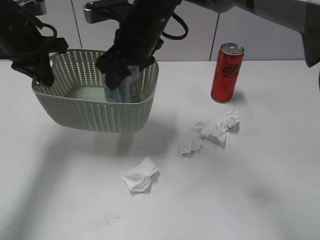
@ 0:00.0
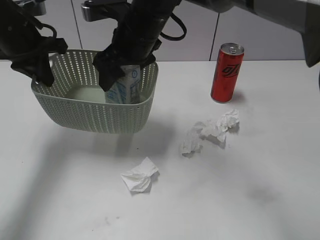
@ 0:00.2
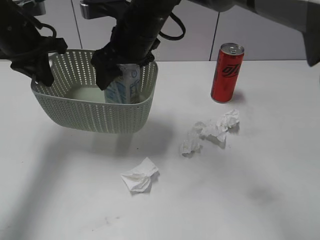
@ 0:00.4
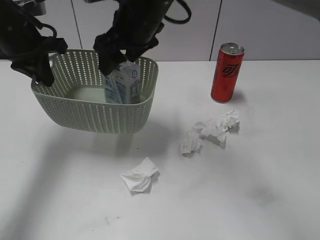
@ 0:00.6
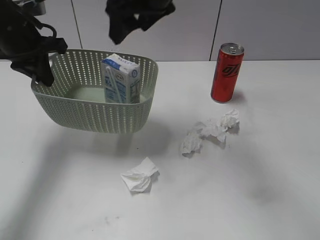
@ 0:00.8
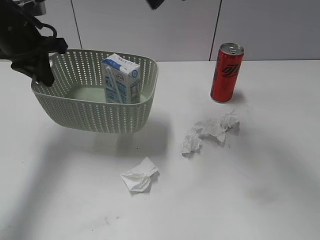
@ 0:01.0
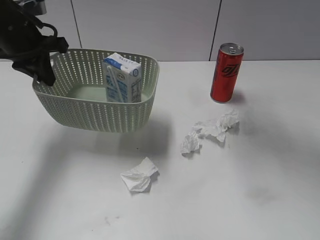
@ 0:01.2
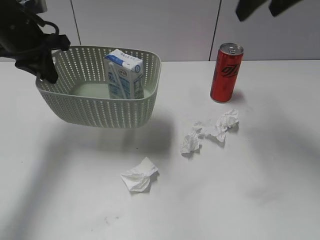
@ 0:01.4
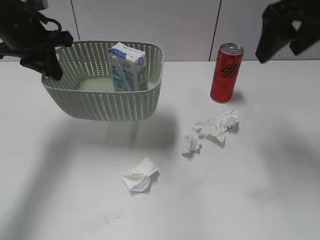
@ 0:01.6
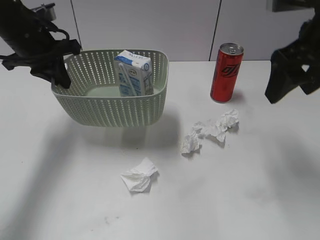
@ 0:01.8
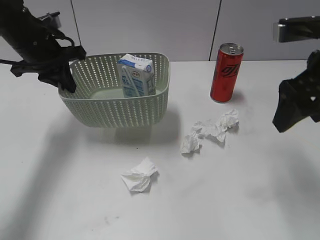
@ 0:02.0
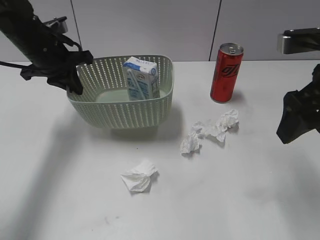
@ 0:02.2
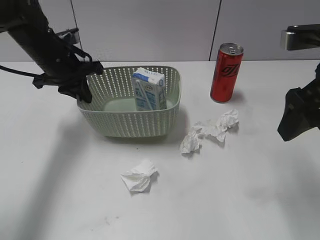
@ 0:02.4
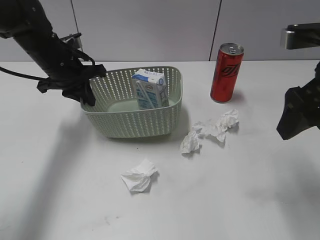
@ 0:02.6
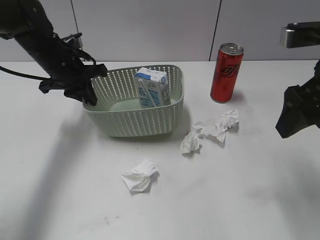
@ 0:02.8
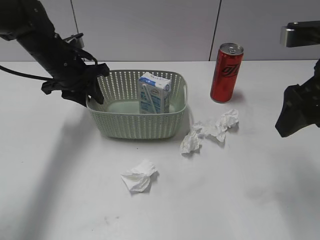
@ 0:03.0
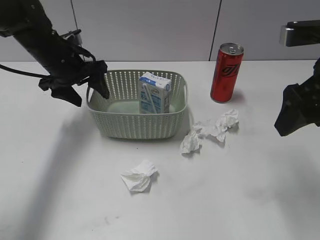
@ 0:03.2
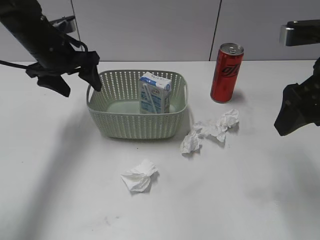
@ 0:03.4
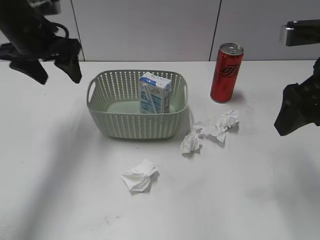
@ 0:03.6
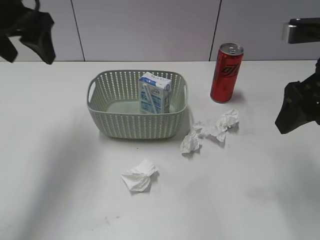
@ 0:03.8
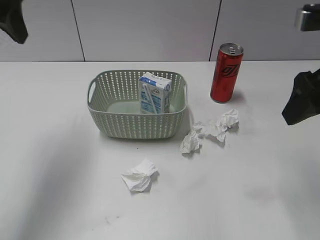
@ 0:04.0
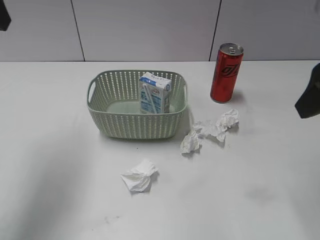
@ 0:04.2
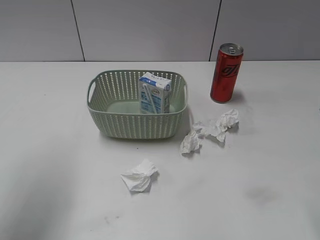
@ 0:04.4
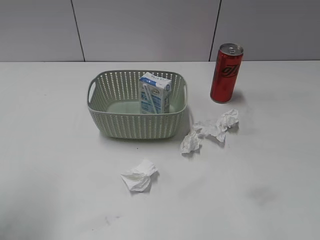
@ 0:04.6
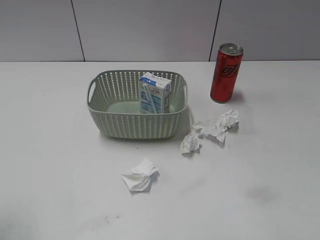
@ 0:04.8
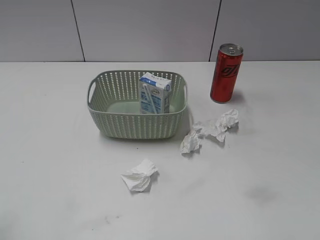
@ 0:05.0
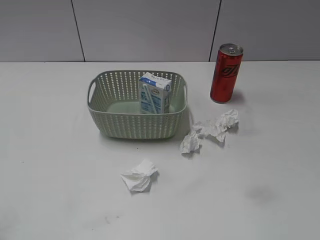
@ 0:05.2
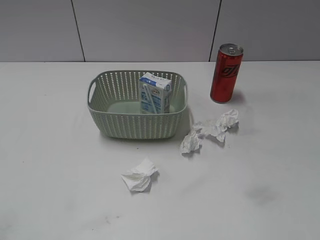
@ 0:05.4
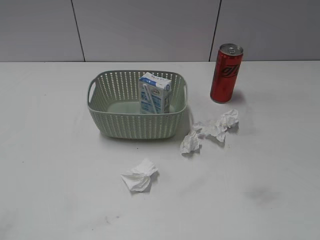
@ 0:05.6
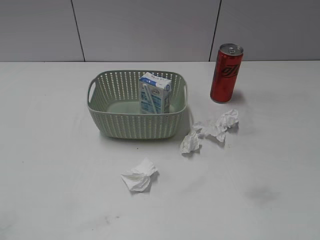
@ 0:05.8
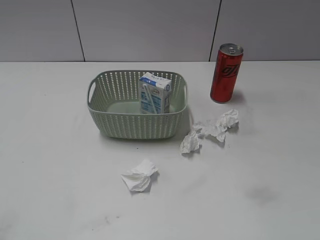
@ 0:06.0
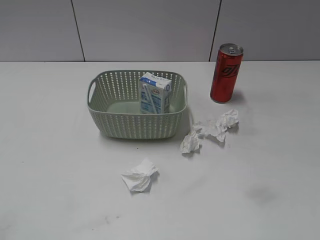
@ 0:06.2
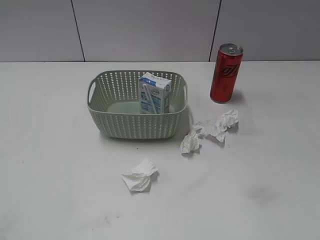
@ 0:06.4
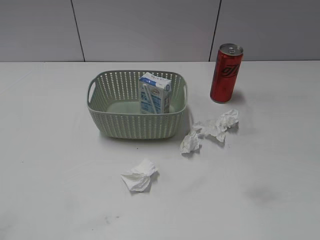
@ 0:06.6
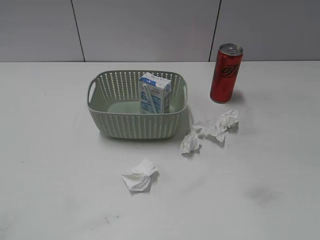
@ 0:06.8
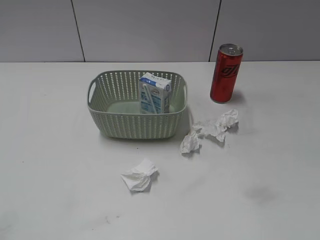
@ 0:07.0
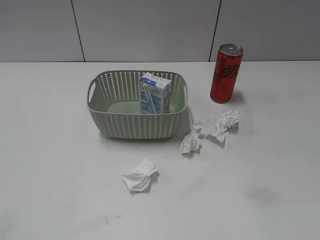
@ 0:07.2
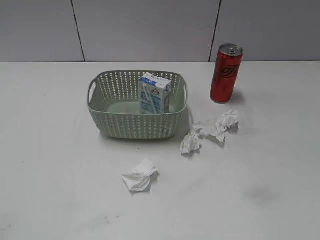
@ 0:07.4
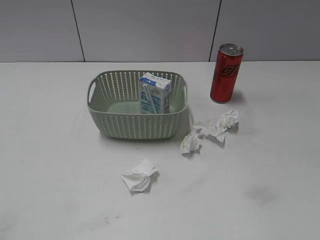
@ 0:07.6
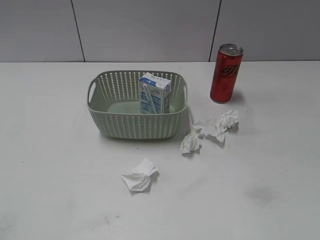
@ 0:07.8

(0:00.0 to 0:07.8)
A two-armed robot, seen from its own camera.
Step, 0:00.8 - 0:03.4: Place the basket on the table with left gripper.
0:00.0 - 0:01.6: The right gripper moves to the right and upward, about 25 cm, and opens its fingers.
0:01.6 - 0:03.2: The right gripper travels backward and downward by some 10 cm. Meanwhile the left gripper goes some 10 cm downward, and opens its fingers.
0:03.2 - 0:04.6: The left gripper moves backward, upward and to the left, roughly 30 cm; the right gripper shifts about 10 cm backward and upward.
0:04.6 - 0:06.2: The left gripper is displaced backward and downward by about 20 cm.

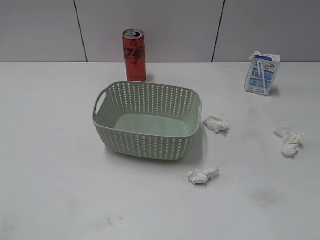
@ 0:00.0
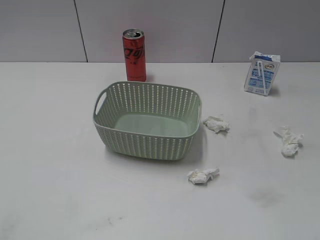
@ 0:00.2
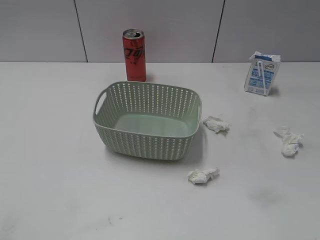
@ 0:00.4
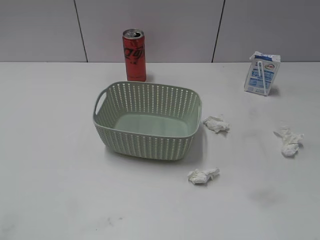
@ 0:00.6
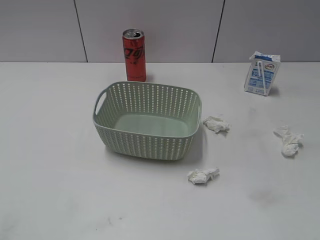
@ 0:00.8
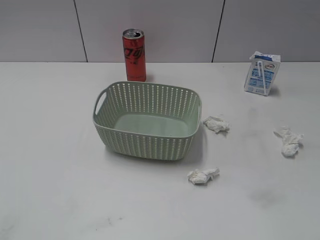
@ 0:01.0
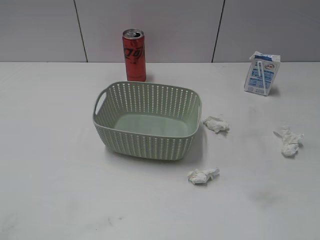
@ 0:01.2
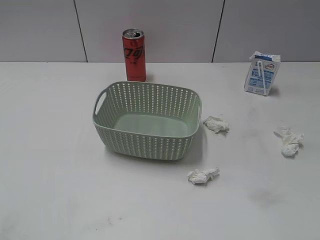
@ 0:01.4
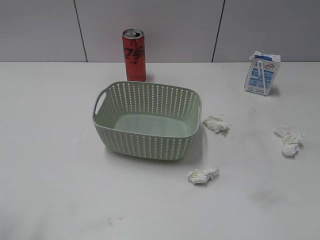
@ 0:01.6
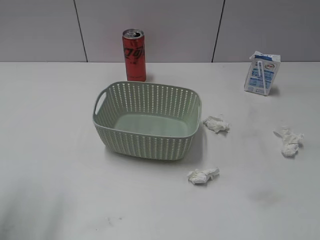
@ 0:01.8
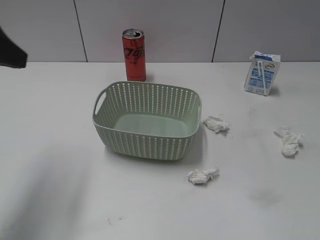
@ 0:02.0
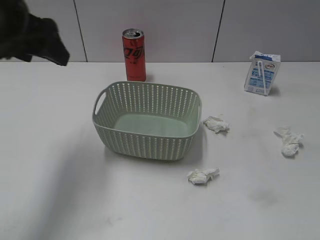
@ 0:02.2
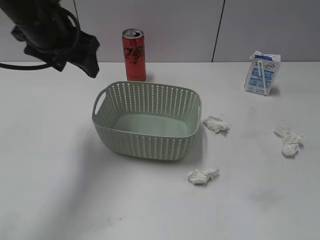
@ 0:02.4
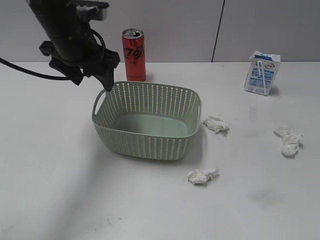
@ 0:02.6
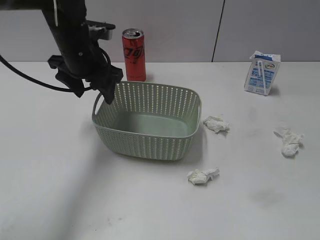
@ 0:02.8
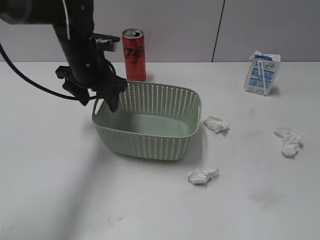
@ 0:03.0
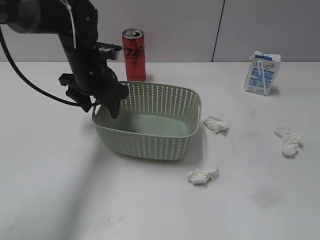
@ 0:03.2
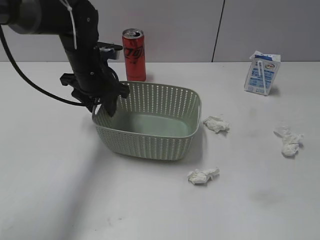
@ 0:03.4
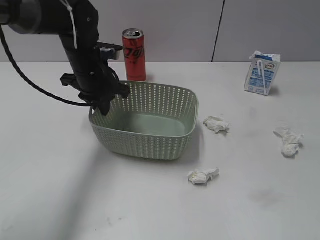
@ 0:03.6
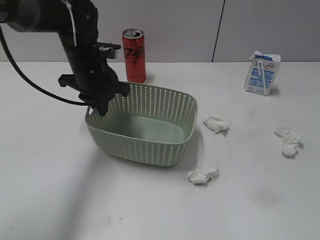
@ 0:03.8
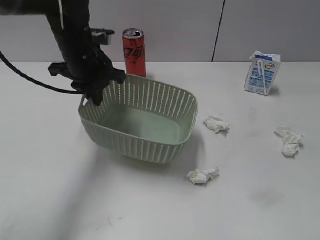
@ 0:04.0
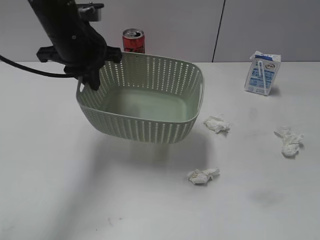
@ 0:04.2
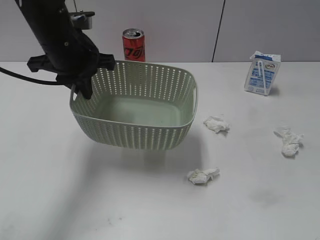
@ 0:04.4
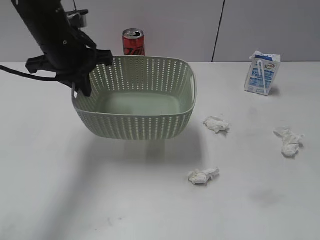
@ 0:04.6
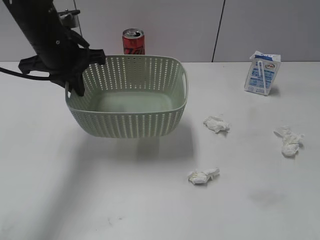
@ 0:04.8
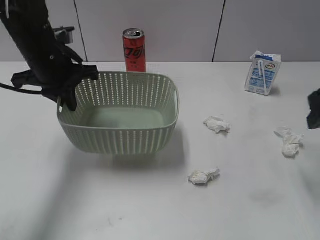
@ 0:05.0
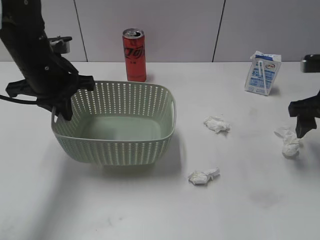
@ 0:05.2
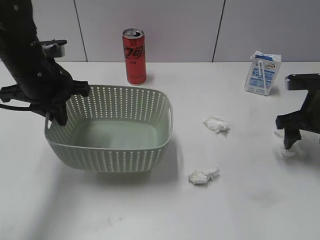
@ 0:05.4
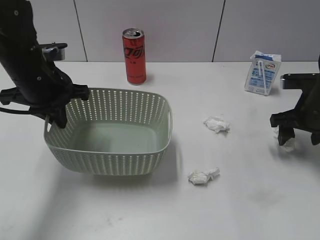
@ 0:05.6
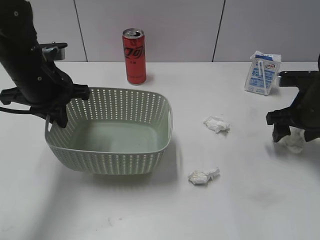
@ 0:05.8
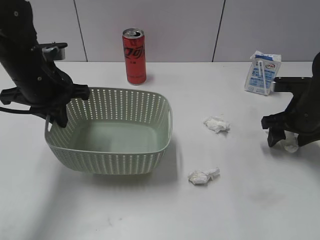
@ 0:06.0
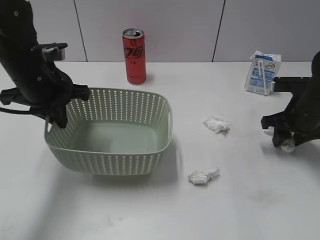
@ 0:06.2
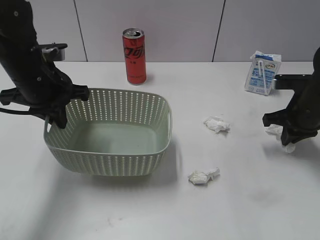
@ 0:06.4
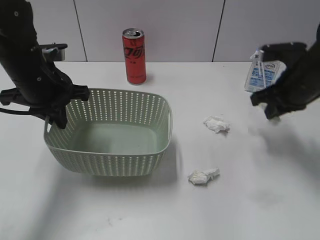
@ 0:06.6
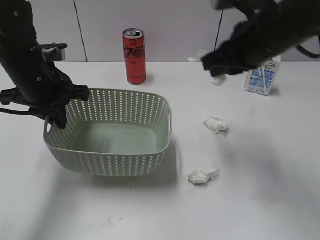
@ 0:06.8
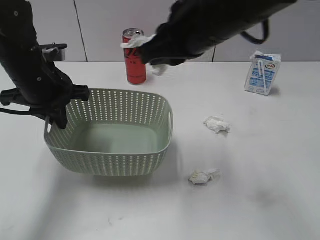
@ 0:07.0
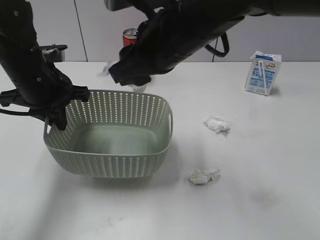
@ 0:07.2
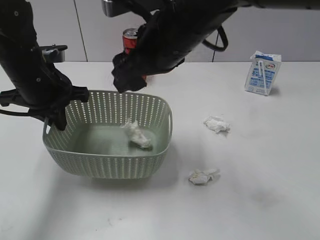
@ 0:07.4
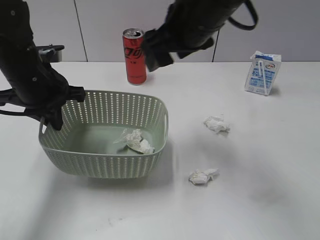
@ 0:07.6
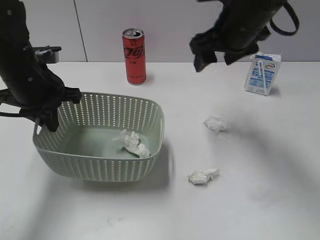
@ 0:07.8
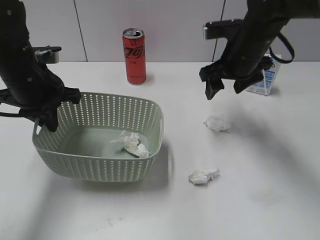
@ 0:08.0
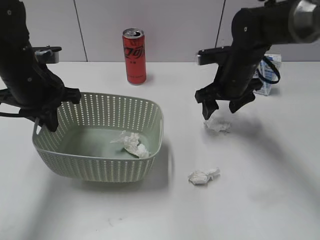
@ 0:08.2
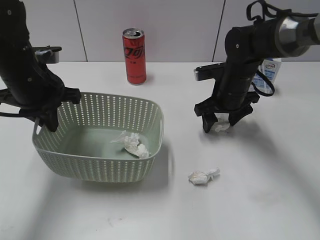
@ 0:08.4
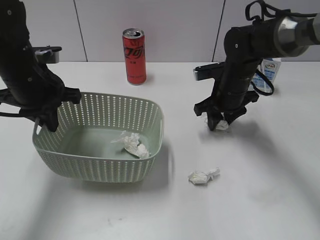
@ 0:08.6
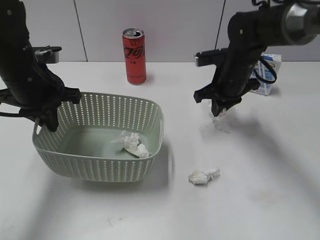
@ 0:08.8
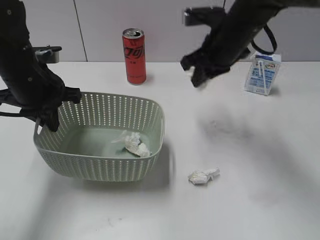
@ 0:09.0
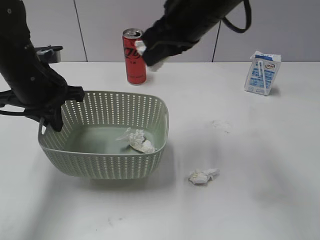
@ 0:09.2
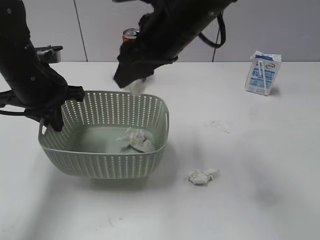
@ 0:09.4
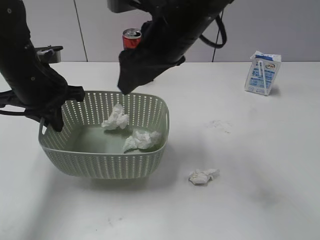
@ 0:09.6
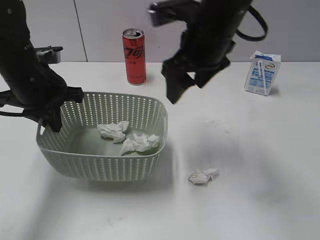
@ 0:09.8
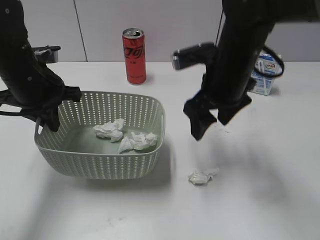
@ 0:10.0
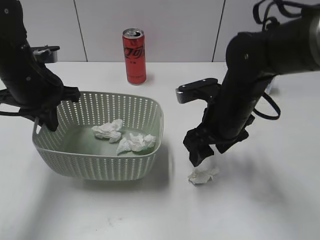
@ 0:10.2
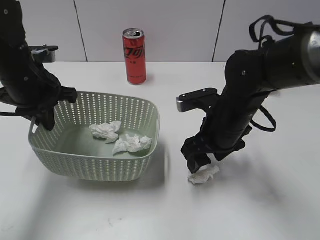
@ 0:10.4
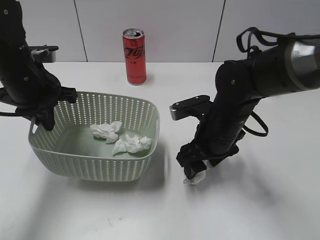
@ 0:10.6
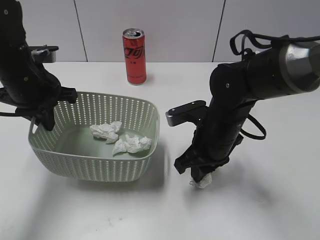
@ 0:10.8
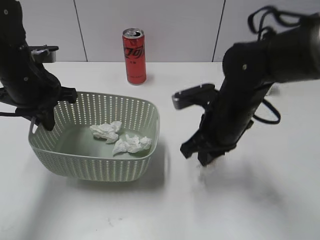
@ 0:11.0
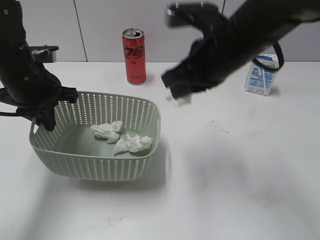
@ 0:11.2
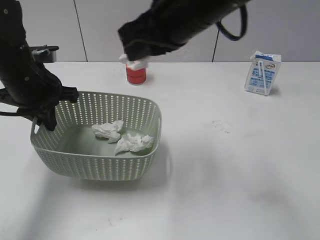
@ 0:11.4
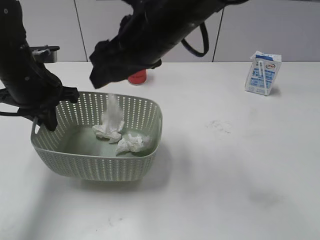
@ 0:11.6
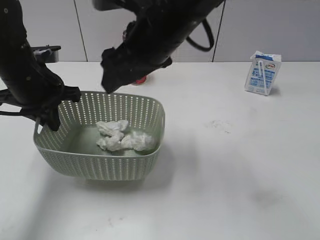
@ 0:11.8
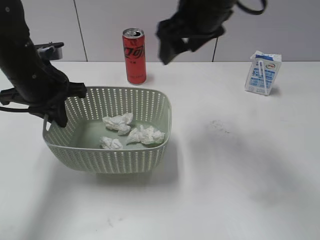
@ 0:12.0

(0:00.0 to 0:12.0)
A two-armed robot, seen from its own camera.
Step, 0:01.8 - 0:03.6: Grasp the basket with left gripper.
Step, 0:03.8 - 0:04.4: Lift the basket with left gripper.
Step, 0:04.6 - 0:06.4: Grasp the waste paper with right gripper.
Step, 0:06.6 - 0:07.4: Place the waste paper in the basket with right gripper.
Step, 0:07.6 - 0:08.8: Grasp the waste paper with right gripper.
Step, 0:09.0 - 0:09.6: Place the waste paper in the basket with right gripper.
Step, 0:09.8 - 0:10.8: Grasp the waste paper with right gripper.
Step, 0:11.0 - 0:11.8: Place the waste paper in the basket with right gripper.
0:01.6 - 0:03.0: The left gripper moves forward, to the right and downward, some 35 cm.
0:03.0 - 0:04.4: The left gripper travels upward by about 5 cm, and closes up.
0:04.4 - 0:06.0: The left gripper shifts by about 5 cm, while the right gripper is displaced forward and downward by some 40 cm.
0:06.0 - 0:07.6: The right gripper moves to the left and upward, approximately 30 cm, and closes and opens again.
0:07.6 - 0:09.0: The right gripper is displaced downward, forward and to the right by roughly 15 cm, and closes up.
0:09.0 - 0:10.4: The right gripper goes approximately 15 cm backward and downward, and opens up.
0:10.4 - 0:12.0: The right gripper moves upward, approximately 15 cm, and closes, then reopens.

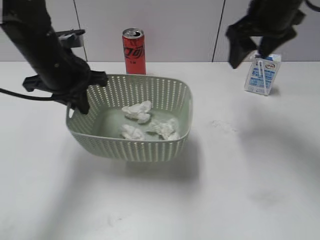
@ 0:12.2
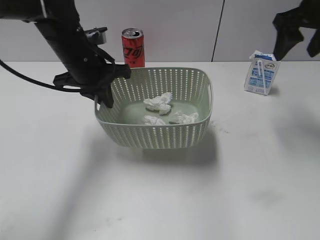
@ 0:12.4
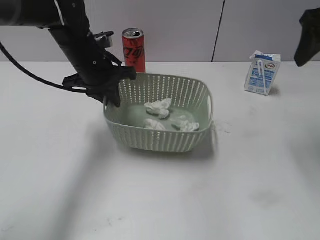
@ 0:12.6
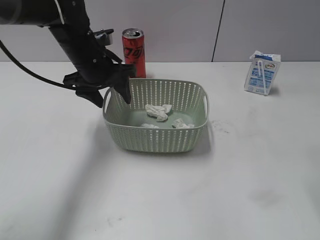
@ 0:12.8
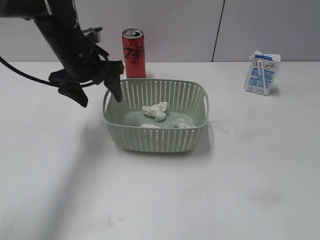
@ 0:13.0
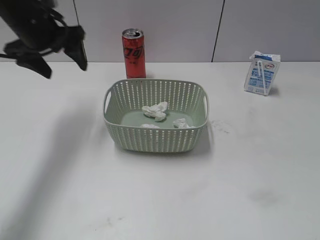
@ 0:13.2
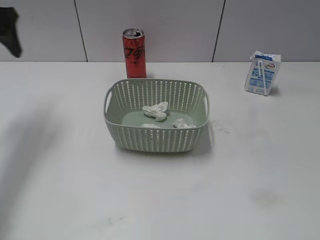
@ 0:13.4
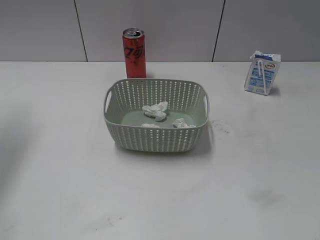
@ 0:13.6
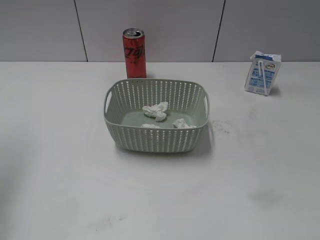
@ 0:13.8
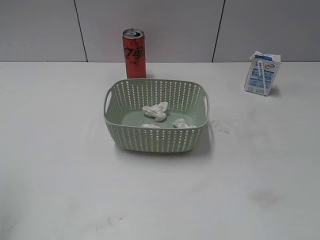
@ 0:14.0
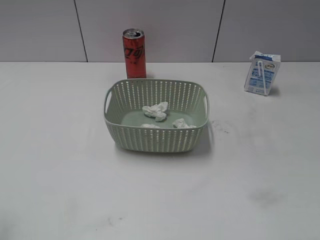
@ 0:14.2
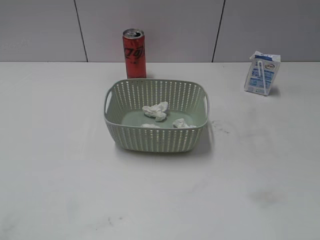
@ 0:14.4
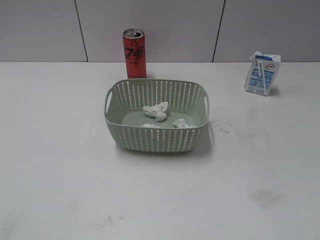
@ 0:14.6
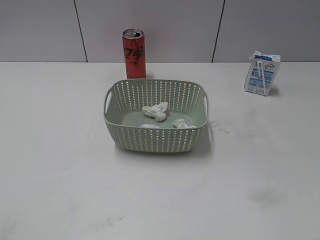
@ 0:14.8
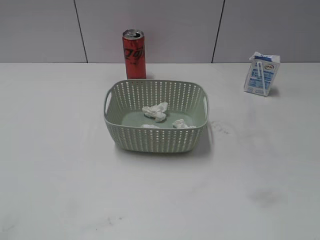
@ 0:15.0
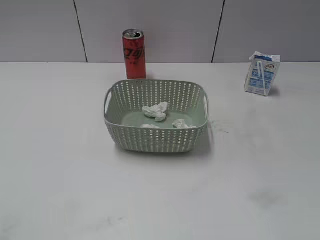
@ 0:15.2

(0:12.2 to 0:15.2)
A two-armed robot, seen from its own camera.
0:12.2 - 0:13.8: The left gripper is displaced to the left and upward by about 25 cm, and opens up, while the right gripper shifts roughly 40 cm backward.
0:13.8 - 0:15.2: The left gripper travels backward and downward by roughly 30 cm.
